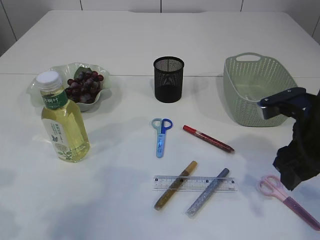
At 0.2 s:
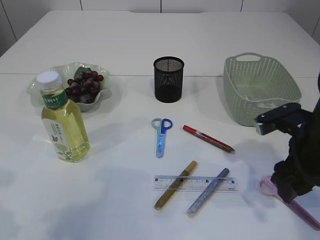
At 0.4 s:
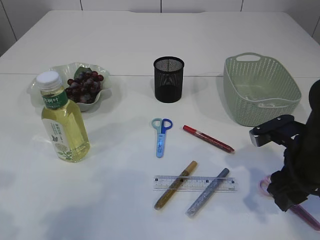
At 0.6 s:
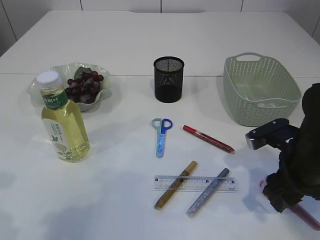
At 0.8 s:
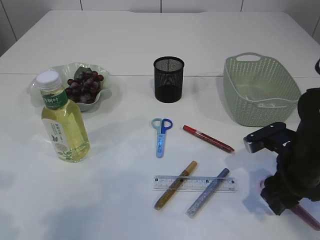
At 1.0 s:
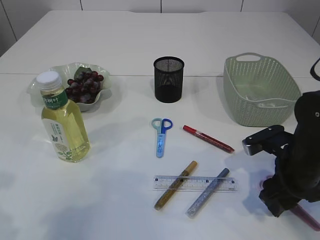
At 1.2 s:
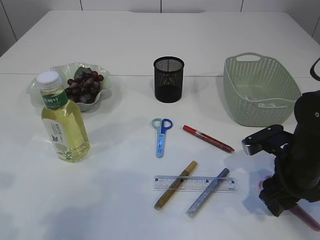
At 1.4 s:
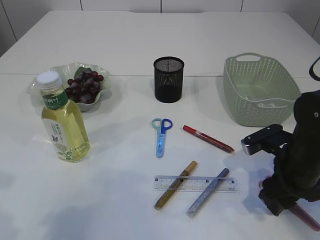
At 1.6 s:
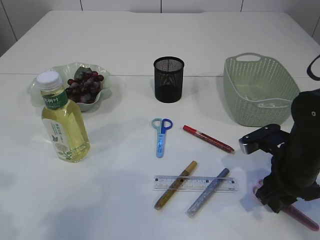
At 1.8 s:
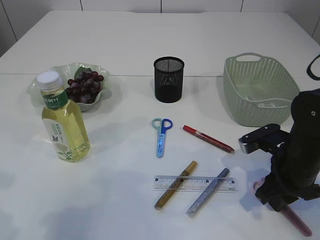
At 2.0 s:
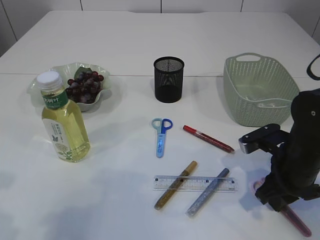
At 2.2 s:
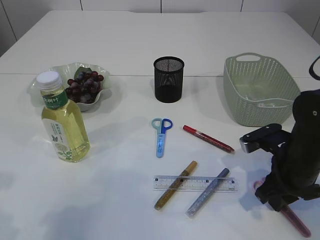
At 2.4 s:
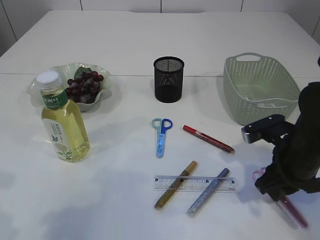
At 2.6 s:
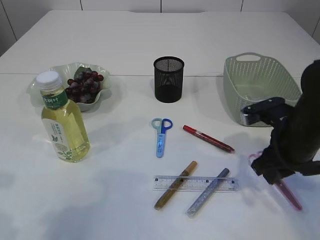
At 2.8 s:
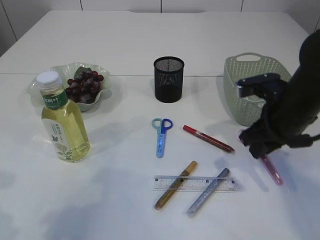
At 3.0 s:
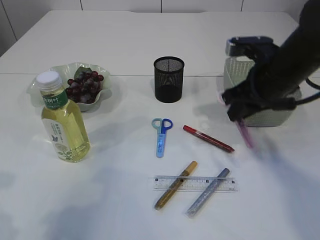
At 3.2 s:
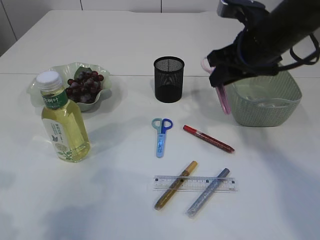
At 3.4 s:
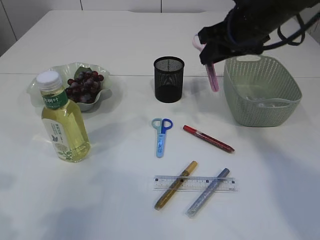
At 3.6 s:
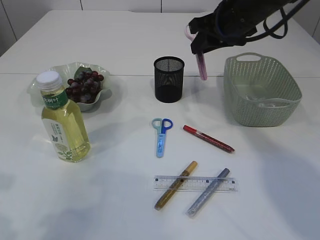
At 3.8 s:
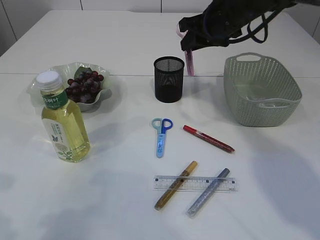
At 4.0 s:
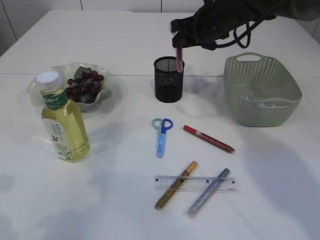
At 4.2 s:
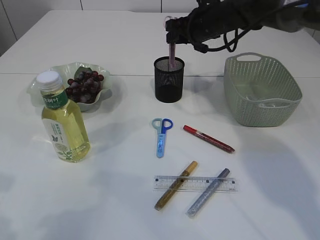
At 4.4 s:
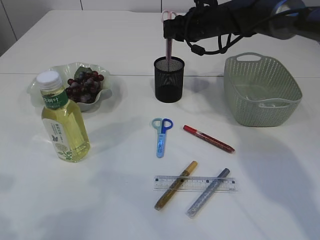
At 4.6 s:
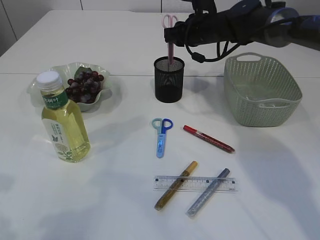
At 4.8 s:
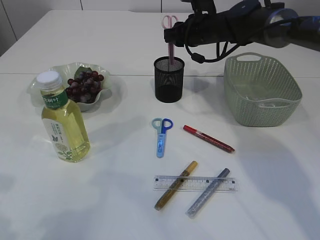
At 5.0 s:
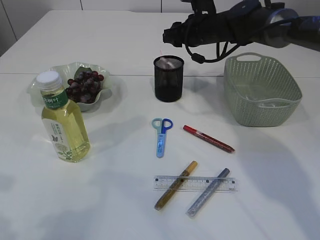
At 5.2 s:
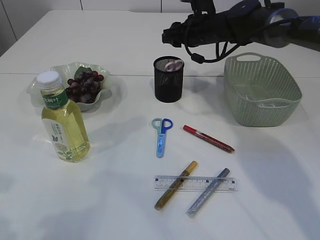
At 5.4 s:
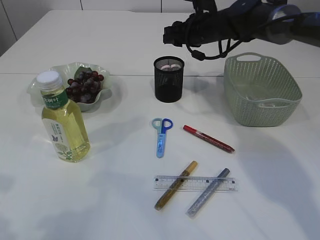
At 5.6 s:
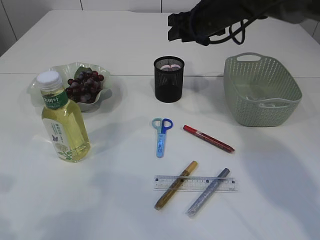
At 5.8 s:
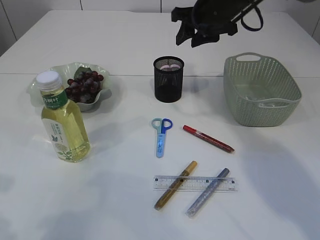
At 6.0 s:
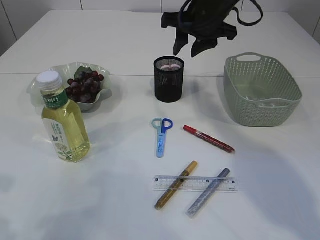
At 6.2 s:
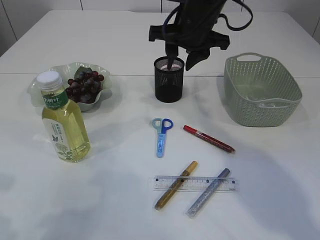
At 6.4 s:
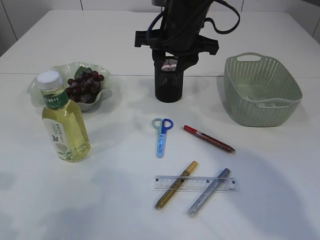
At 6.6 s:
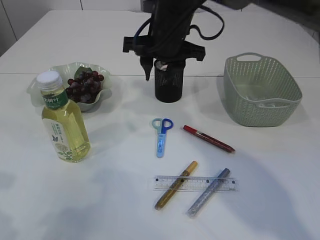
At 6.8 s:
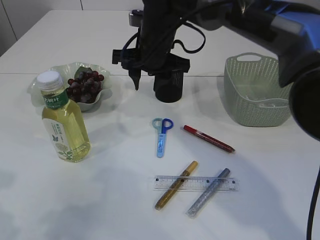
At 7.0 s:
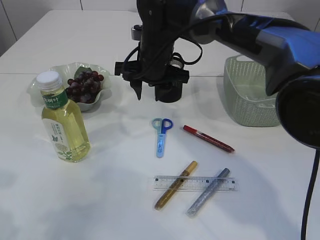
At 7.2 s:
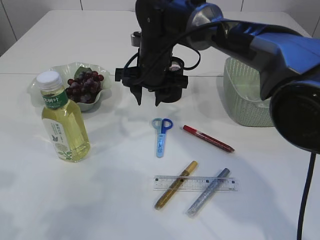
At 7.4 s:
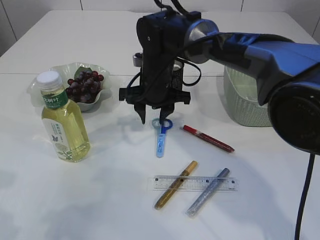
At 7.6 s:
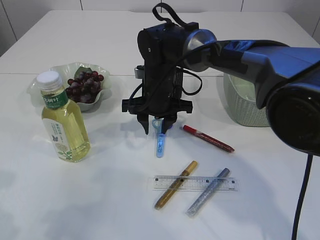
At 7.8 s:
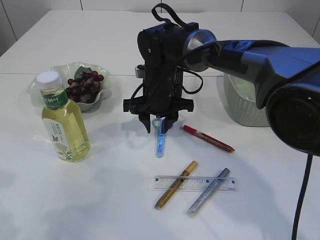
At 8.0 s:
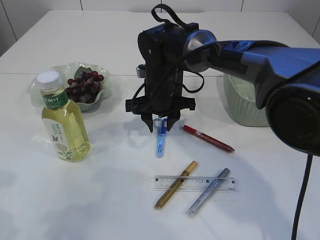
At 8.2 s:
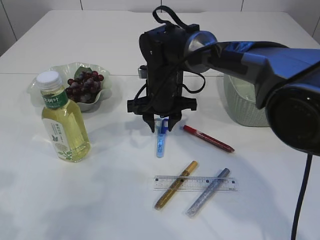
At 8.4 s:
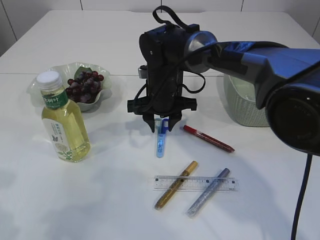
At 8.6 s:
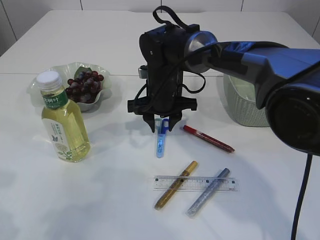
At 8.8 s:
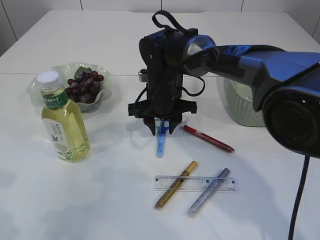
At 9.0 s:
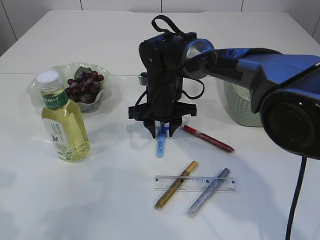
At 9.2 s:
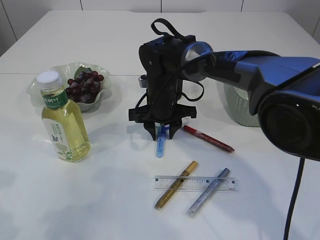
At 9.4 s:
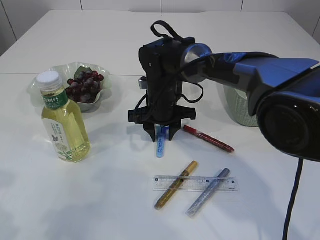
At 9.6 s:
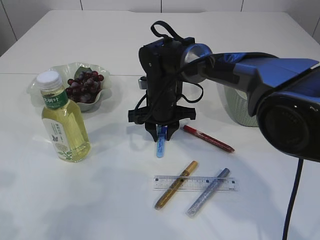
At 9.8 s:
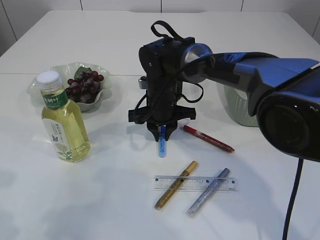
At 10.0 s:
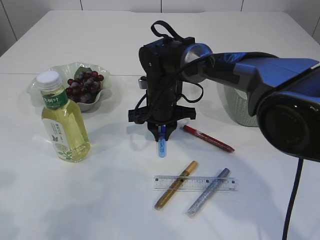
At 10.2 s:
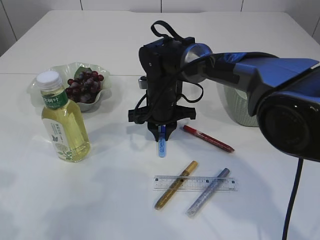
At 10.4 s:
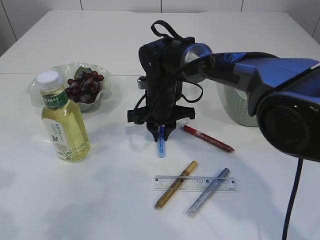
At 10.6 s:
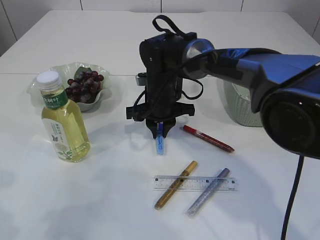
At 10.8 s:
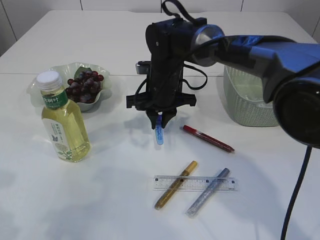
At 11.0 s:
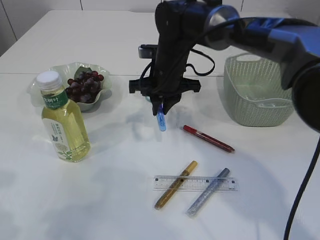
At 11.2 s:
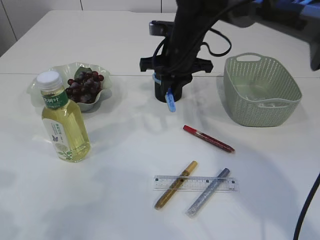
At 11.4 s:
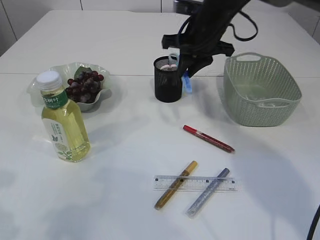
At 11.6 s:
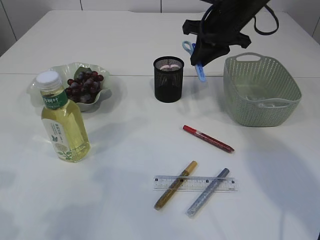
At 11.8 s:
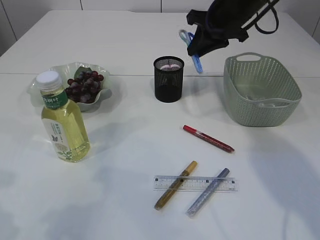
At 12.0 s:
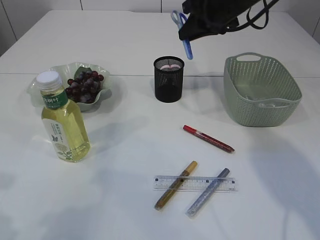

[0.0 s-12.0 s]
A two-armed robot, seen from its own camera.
Step, 0.0 to 2.8 s: pick up the pink scissors.
Step, 3.0 to 5.0 s: Place the pink scissors into the pen holder.
Step, 5.2 to 11.0 s: pick up the blue scissors.
0.0 to 1.6 s: The right gripper shifts approximately 10 cm downward.
1.6 to 3.0 s: The right gripper travels upward and forward by roughly 15 cm.
3.0 to 4.4 s: The right gripper travels forward by roughly 20 cm.
4.4 to 6.0 s: The right gripper moves backward and upward, about 10 cm, and opens.
6.0 to 7.6 s: The right gripper heads downward and to the left, covering some 15 cm.
7.6 to 9.0 s: The grippers make only small movements.
9.0 to 10.4 s: The right gripper closes its fingers.
10.4 to 12.0 s: The right gripper is displaced upward and to the right by approximately 20 cm.

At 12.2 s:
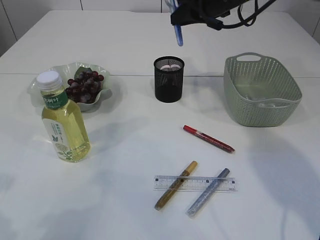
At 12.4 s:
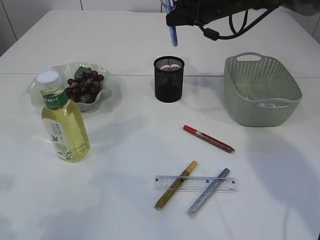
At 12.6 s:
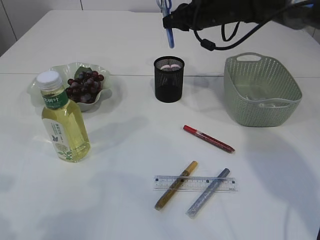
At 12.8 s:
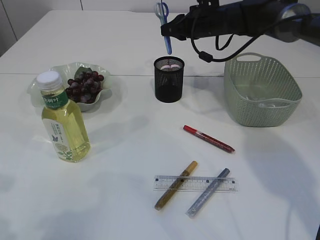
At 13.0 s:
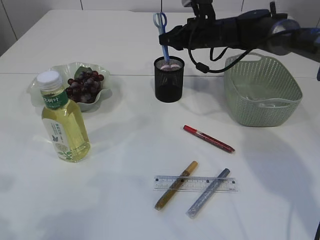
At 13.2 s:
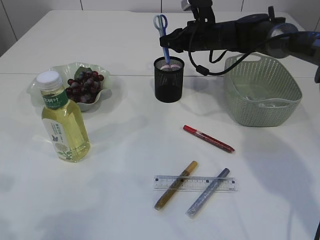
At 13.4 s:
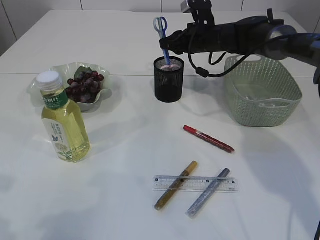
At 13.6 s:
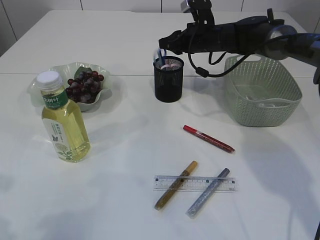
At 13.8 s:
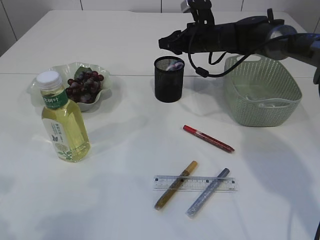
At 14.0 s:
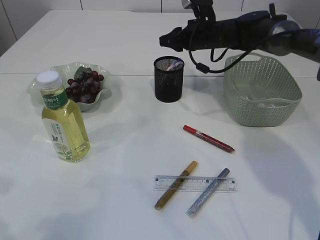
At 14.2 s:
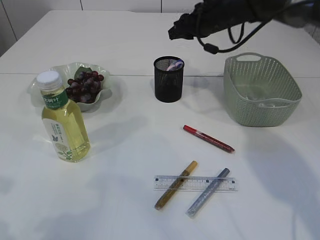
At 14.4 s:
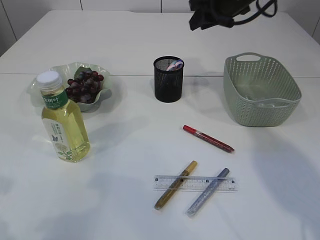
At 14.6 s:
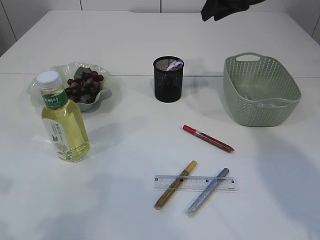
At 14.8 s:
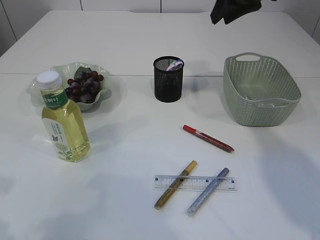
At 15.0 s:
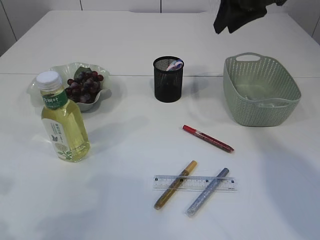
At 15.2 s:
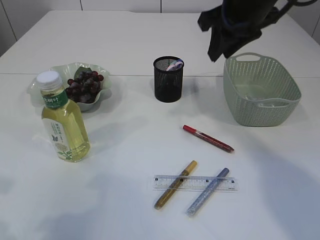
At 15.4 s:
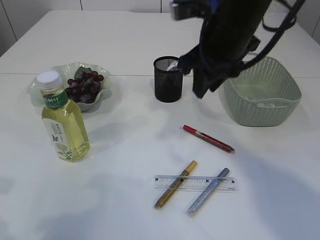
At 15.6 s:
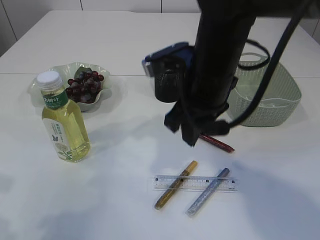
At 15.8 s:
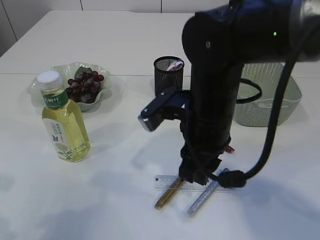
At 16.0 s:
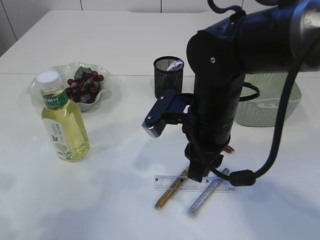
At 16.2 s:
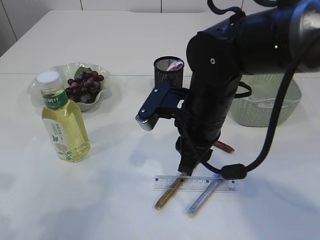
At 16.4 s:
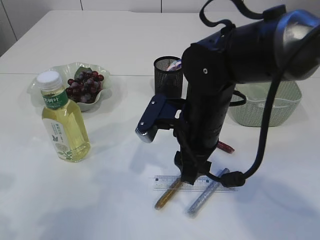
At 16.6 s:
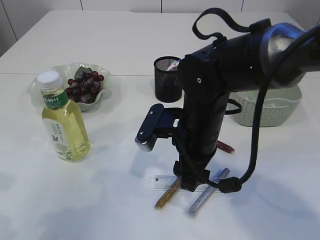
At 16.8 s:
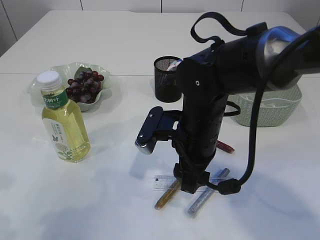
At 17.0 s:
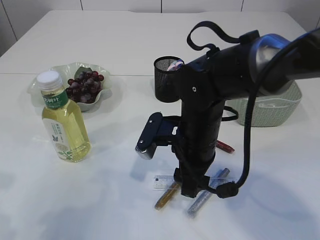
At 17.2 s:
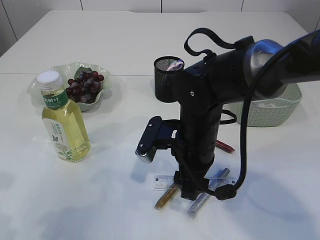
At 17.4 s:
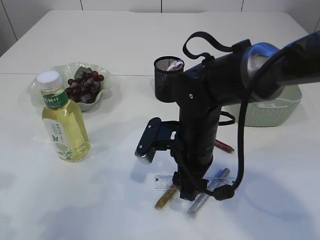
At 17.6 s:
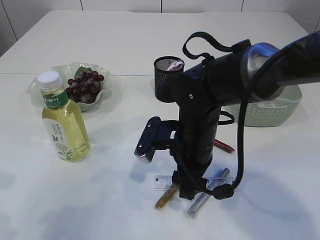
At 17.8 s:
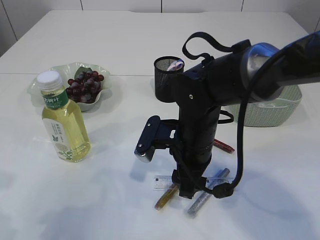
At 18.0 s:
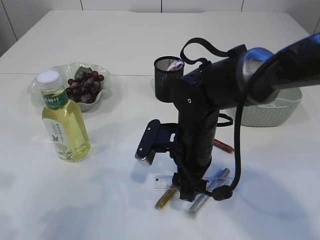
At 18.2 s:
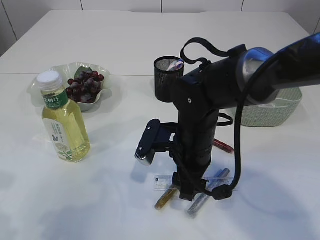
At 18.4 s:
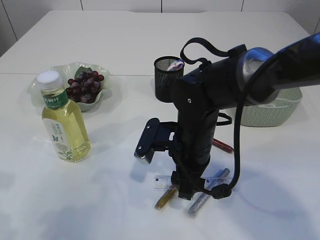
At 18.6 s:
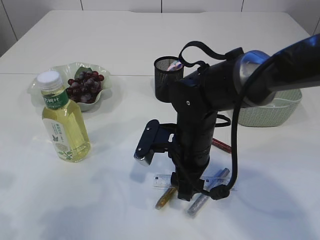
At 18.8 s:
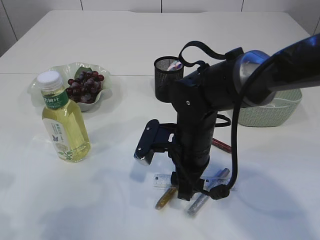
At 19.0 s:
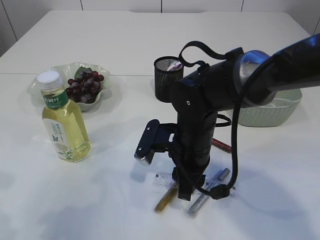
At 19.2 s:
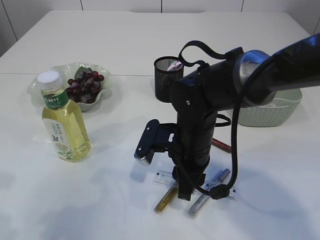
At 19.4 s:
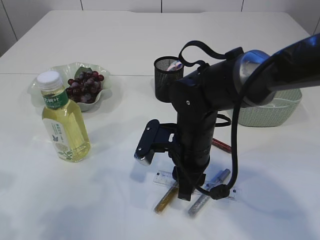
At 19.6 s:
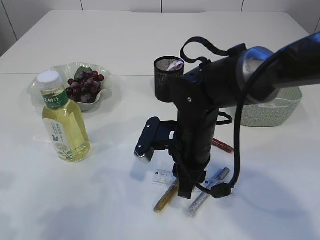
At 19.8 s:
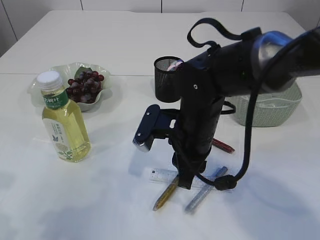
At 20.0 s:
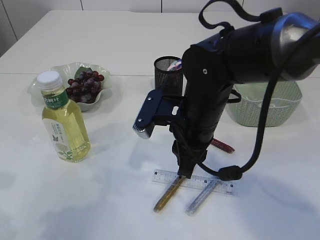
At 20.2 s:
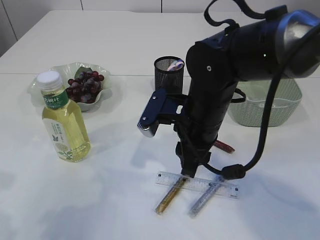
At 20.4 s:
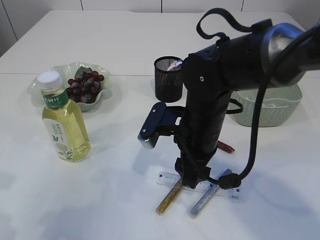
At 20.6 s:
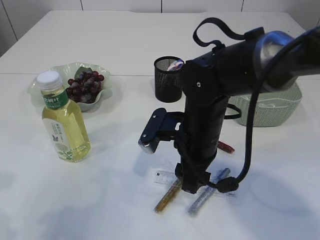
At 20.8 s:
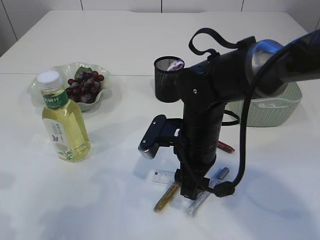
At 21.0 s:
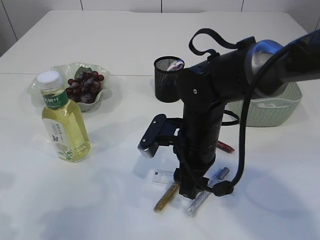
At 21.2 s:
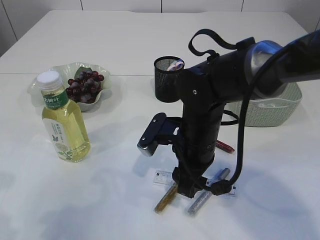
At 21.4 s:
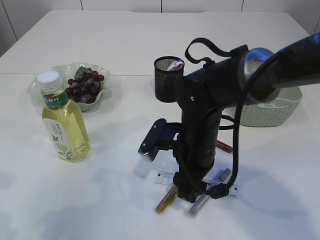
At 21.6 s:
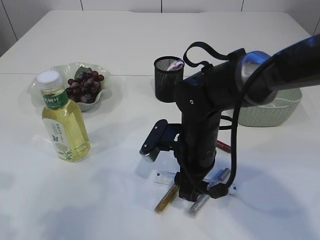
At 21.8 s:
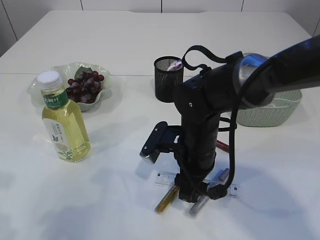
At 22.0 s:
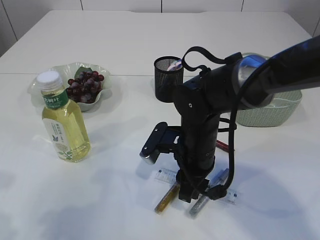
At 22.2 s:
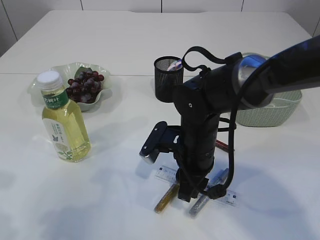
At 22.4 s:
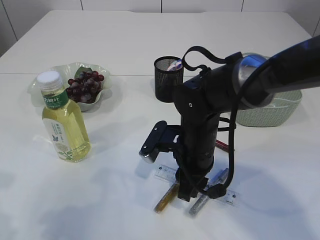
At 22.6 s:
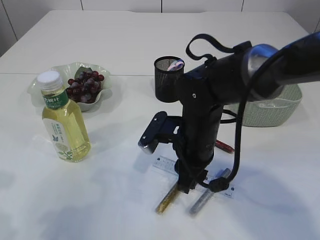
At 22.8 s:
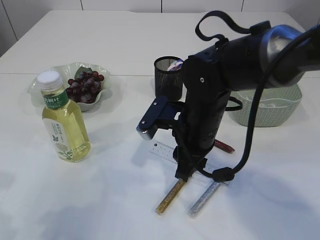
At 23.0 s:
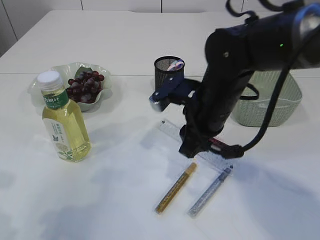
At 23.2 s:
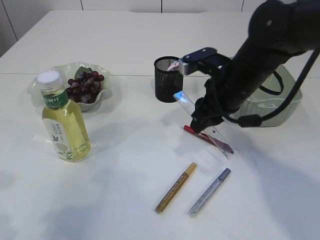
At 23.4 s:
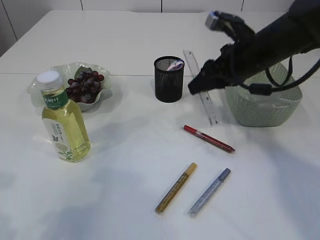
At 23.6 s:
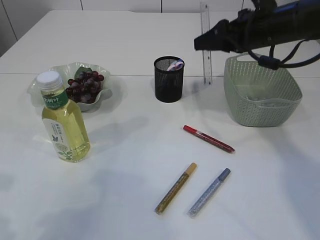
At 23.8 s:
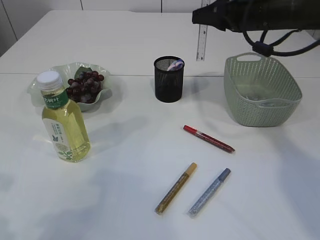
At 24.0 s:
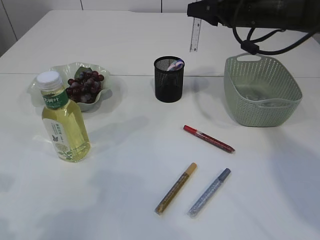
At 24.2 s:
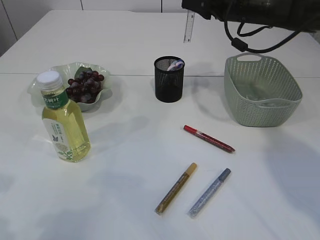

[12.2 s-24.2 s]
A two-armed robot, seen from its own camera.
Step, 12.2 to 14.0 s: Place the blue scissors into the pen holder.
Step, 14.2 to 22.8 s: pick up the ruler.
12.2 to 13.8 s: The right gripper shifts roughly 10 cm downward and forward.
13.8 to 15.2 s: The right gripper is displaced backward and upward by approximately 20 cm.
15.2 to 16.6 s: The right gripper moves downward, to the left and backward, some 20 cm, and opens.
16.6 to 18.2 s: There are only small adjustments of the grippers.
18.2 to 19.8 s: The right gripper closes its fingers.
19.8 to 21.2 s: The right gripper opens up.
21.2 to 22.6 s: The right gripper closes.
22.6 to 24.2 s: The right gripper is displaced forward, upward and to the right by some 25 cm.
